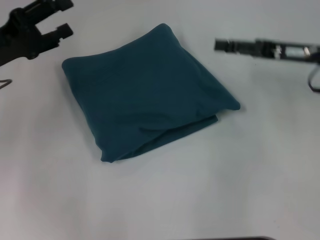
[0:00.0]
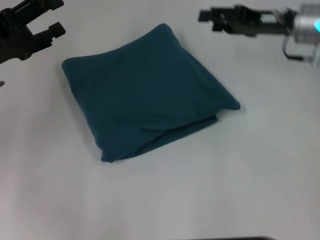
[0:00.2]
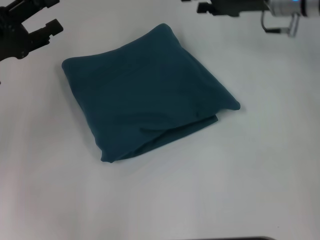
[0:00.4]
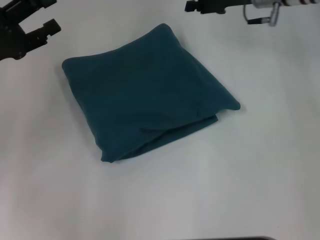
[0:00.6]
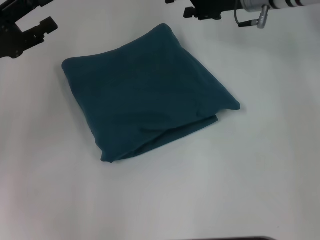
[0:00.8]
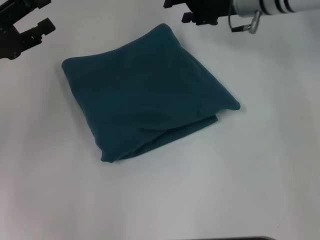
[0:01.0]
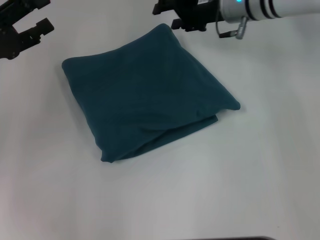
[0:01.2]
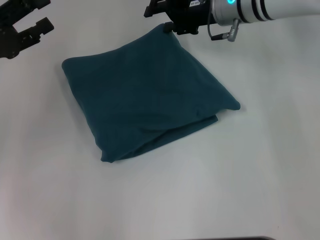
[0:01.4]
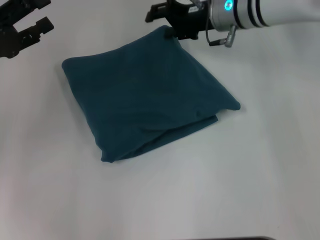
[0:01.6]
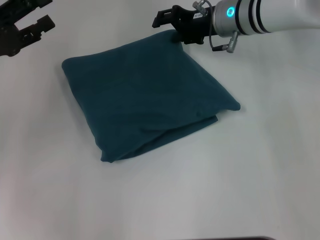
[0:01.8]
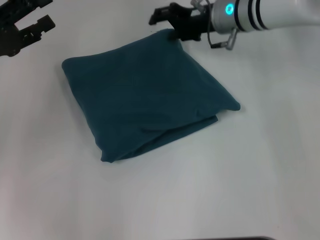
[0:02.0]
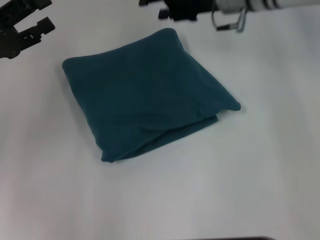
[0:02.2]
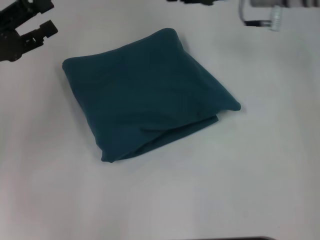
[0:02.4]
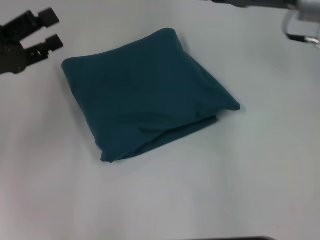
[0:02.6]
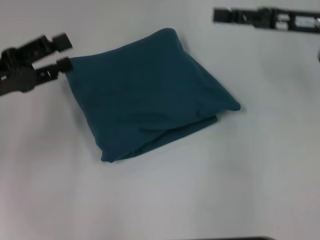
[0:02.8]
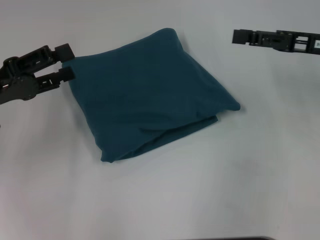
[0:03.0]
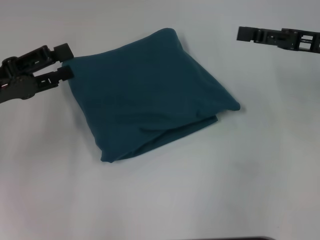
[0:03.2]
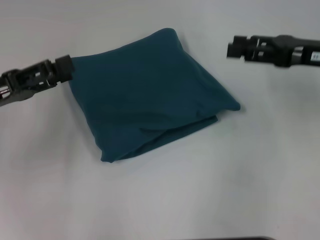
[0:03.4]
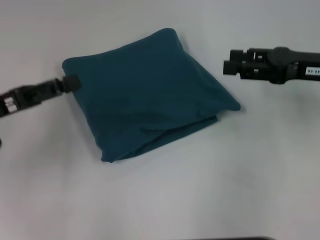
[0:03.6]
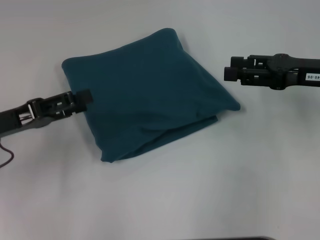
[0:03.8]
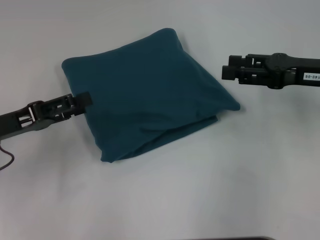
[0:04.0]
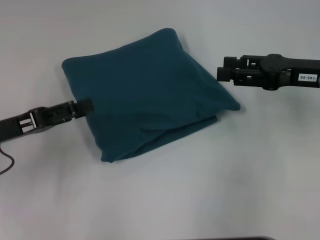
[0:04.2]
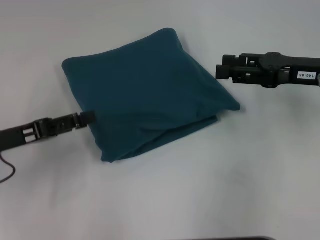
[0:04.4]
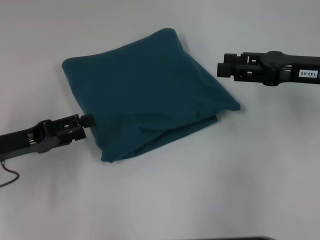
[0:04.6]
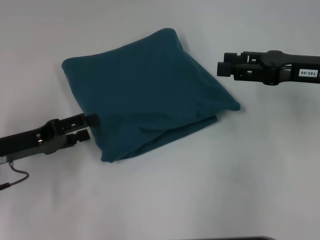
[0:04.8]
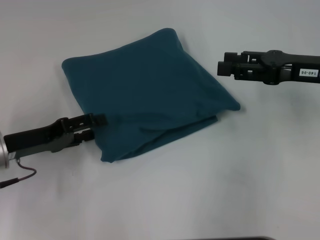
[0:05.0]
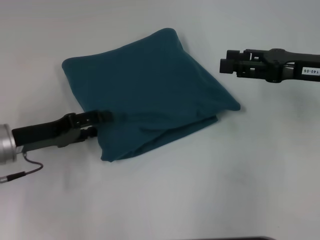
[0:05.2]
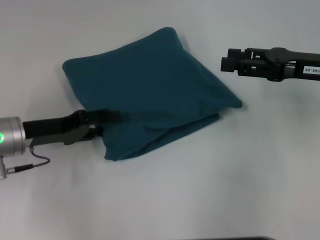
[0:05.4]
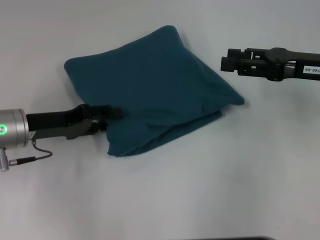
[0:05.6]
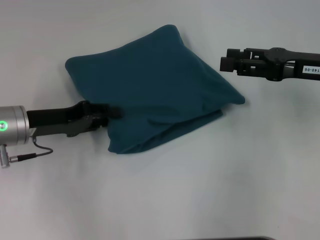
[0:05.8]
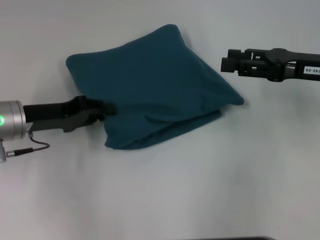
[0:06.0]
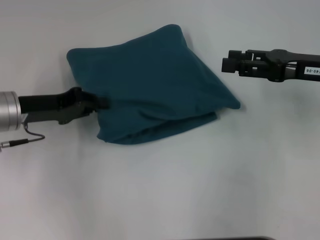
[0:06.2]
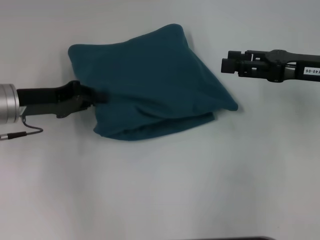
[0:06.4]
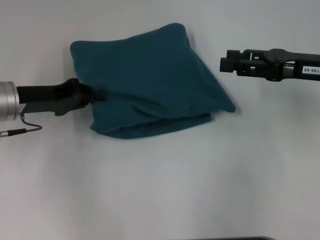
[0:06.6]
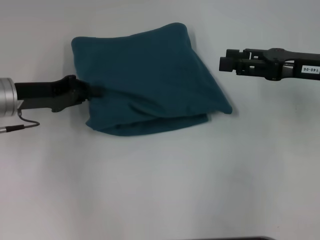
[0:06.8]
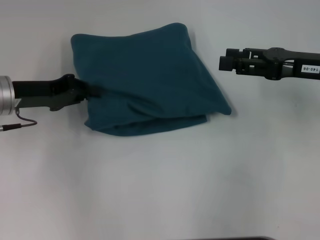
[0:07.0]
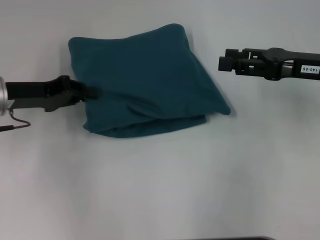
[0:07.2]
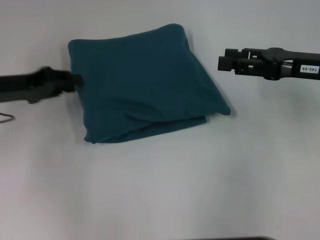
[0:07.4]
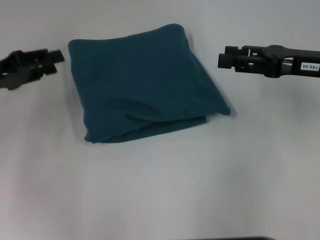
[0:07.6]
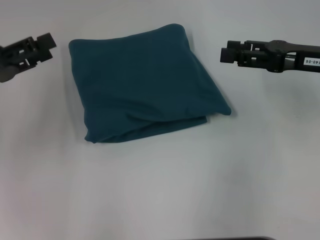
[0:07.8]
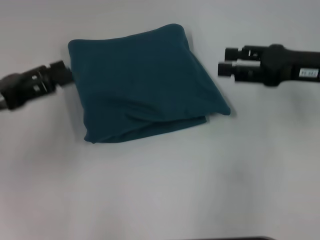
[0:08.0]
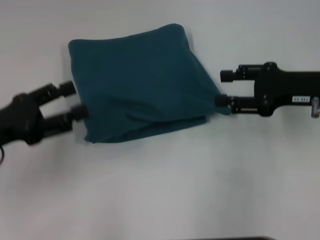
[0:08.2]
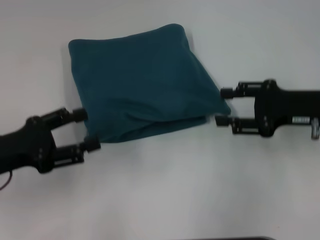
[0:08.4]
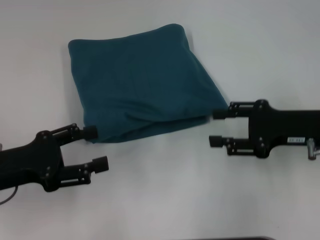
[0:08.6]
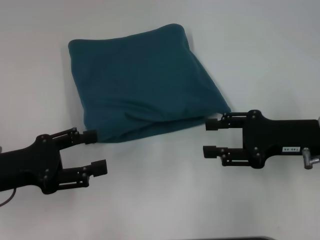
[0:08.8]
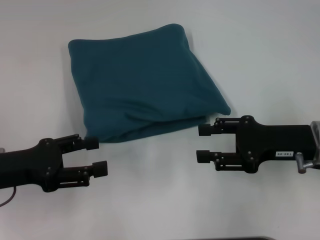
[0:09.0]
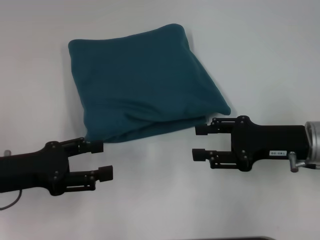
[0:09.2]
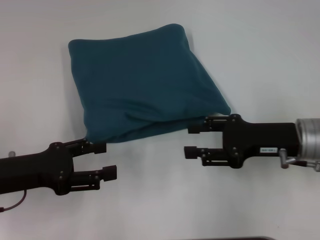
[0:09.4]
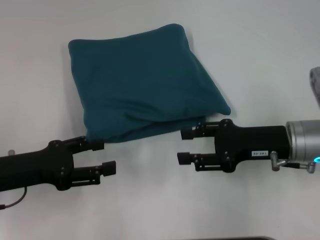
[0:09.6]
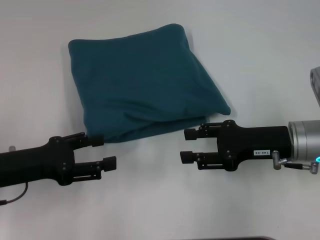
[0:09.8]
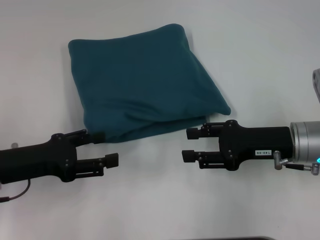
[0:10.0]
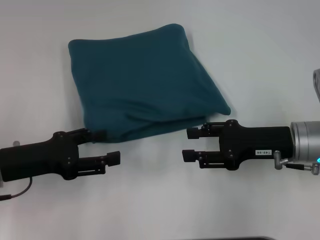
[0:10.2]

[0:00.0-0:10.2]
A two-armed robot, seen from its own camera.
0:00.0 to 0:01.4: The right gripper goes some 15 cm to the left and forward.
0:01.4 to 0:03.0: The right gripper heads to the right and backward, covering approximately 20 cm.
0:03.0 to 0:04.4: The grippers move only a little.
0:04.4 to 0:05.8: The left gripper moves forward, about 5 cm.
0:05.8 to 0:07.2: The left gripper moves about 5 cm, and closes its fingers.
0:07.2 to 0:08.8: The right gripper moves backward and downward, approximately 10 cm. Meanwhile the left gripper travels backward by about 10 cm, and opens.
0:08.8 to 0:10.2: The grippers make only small movements.

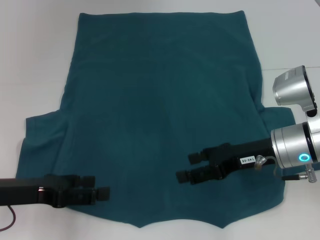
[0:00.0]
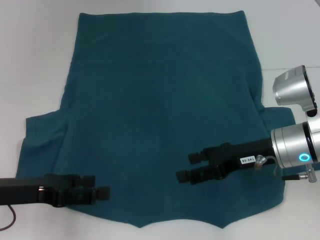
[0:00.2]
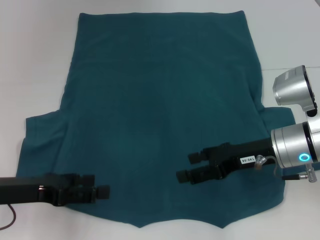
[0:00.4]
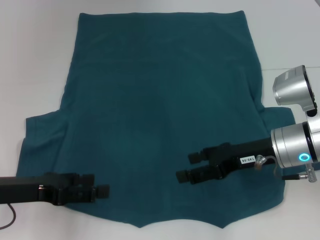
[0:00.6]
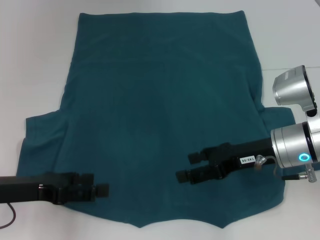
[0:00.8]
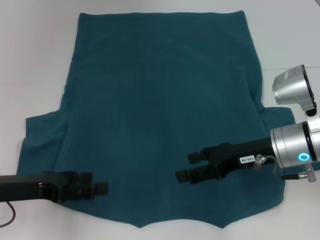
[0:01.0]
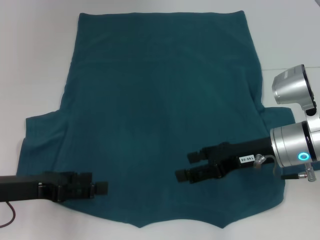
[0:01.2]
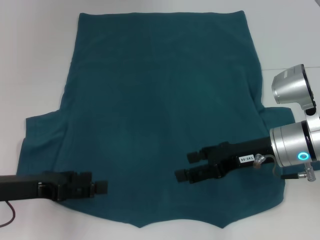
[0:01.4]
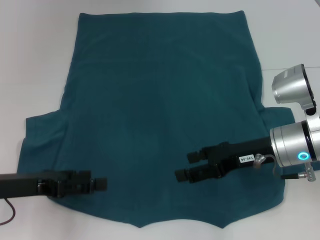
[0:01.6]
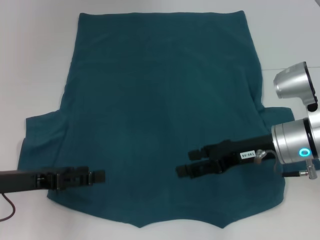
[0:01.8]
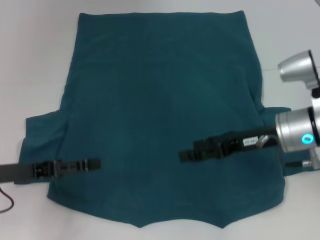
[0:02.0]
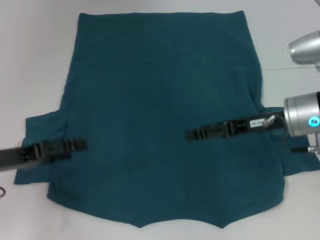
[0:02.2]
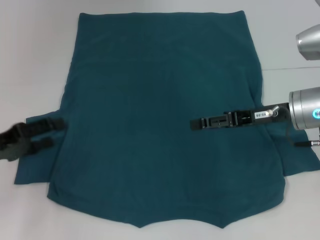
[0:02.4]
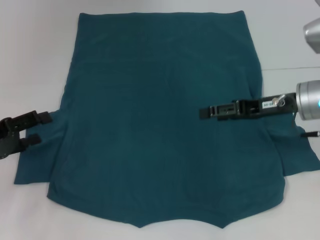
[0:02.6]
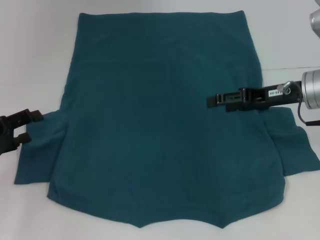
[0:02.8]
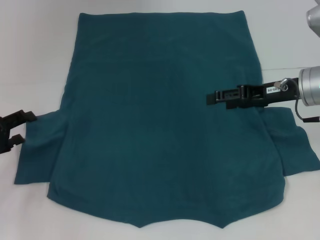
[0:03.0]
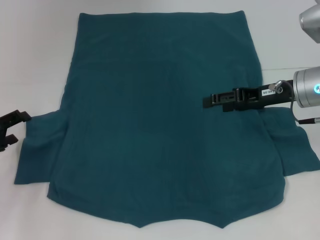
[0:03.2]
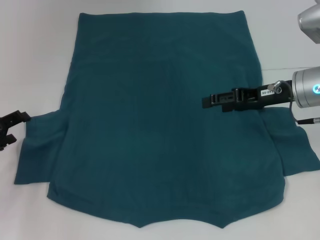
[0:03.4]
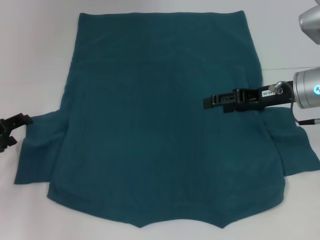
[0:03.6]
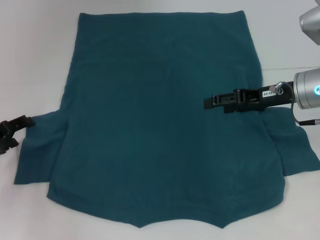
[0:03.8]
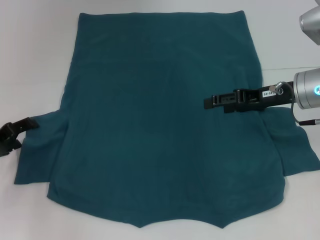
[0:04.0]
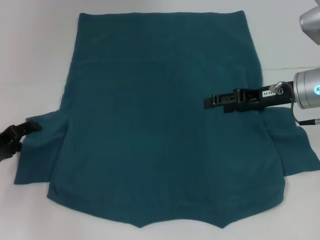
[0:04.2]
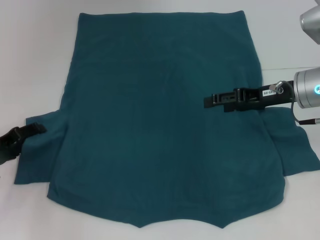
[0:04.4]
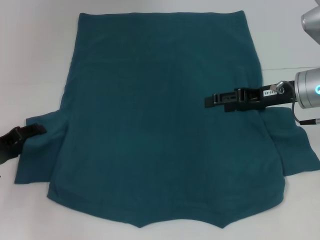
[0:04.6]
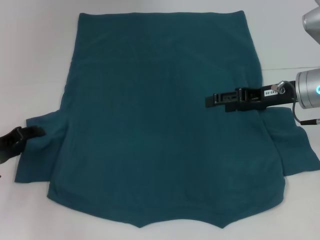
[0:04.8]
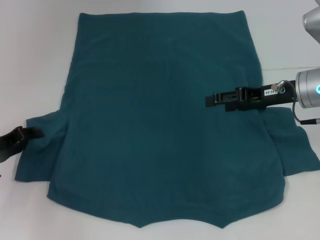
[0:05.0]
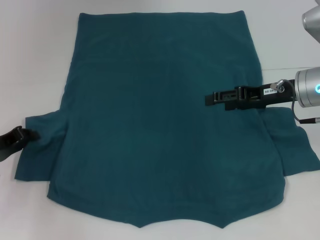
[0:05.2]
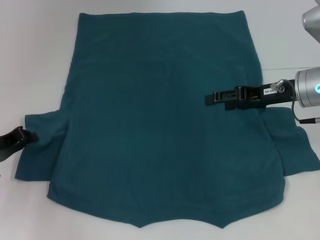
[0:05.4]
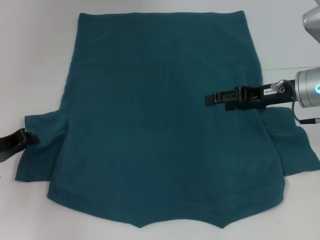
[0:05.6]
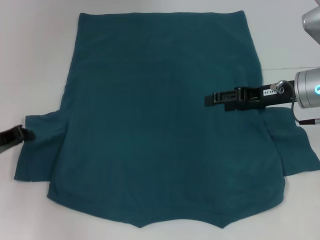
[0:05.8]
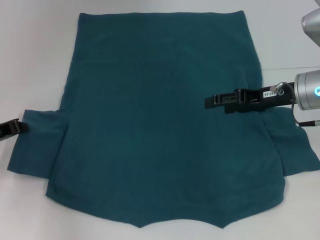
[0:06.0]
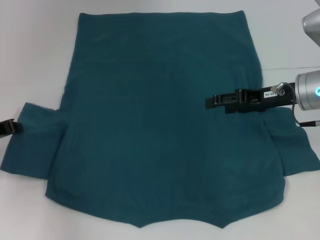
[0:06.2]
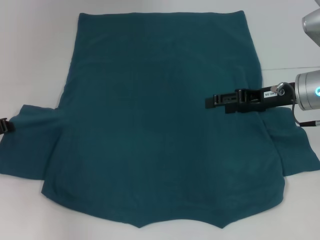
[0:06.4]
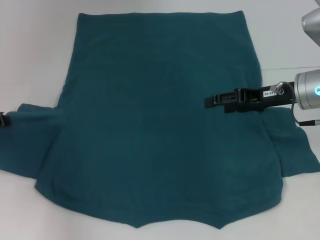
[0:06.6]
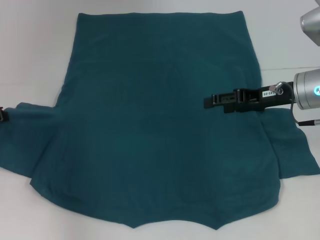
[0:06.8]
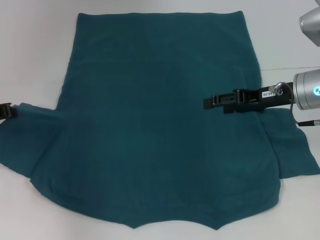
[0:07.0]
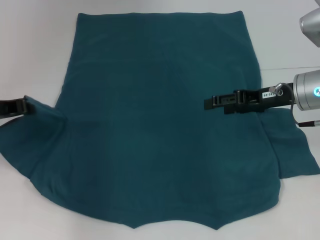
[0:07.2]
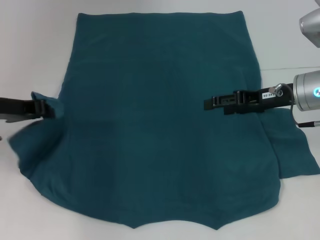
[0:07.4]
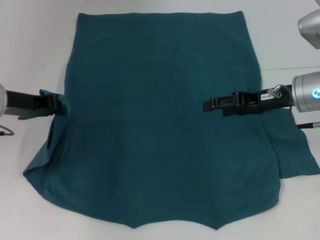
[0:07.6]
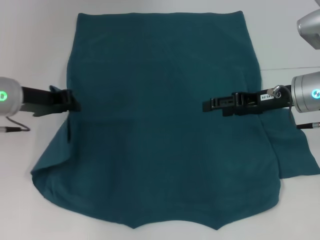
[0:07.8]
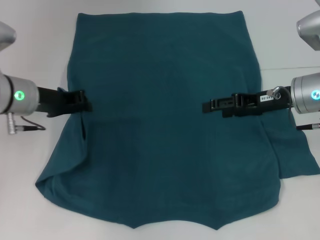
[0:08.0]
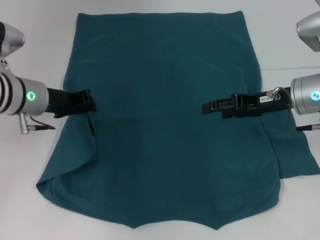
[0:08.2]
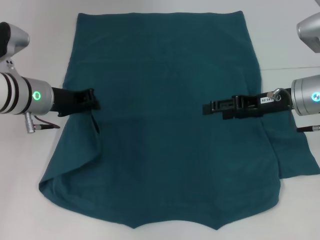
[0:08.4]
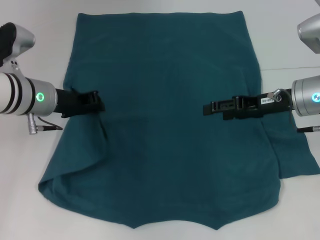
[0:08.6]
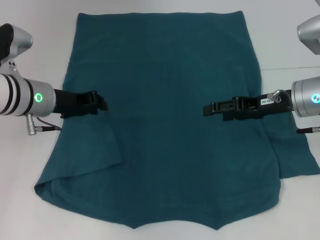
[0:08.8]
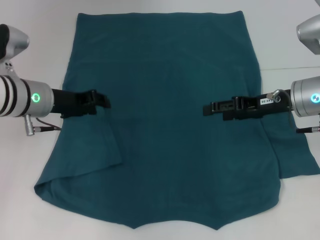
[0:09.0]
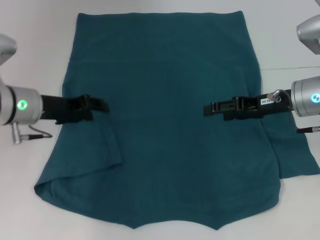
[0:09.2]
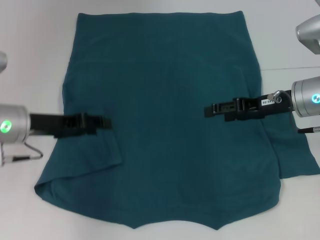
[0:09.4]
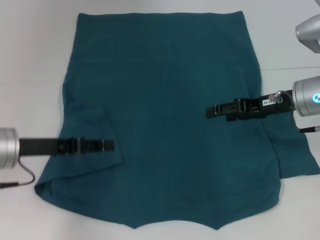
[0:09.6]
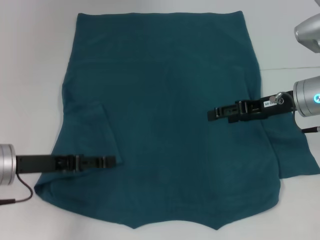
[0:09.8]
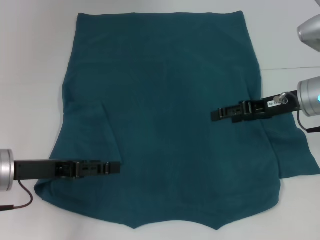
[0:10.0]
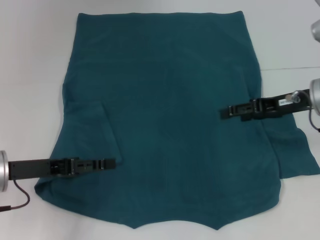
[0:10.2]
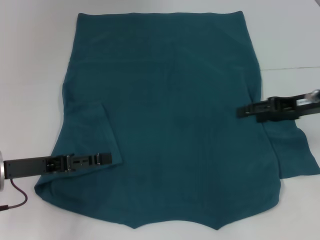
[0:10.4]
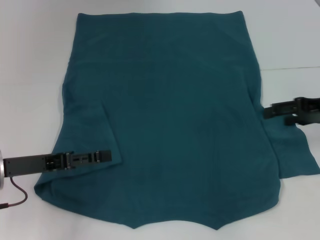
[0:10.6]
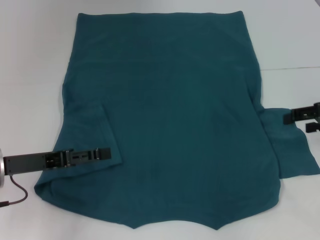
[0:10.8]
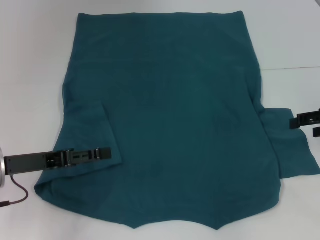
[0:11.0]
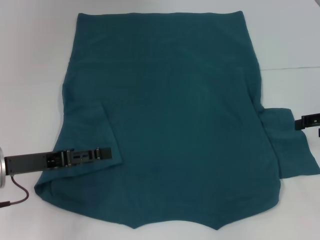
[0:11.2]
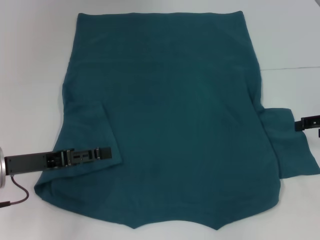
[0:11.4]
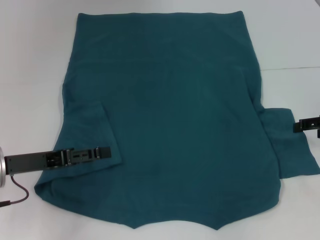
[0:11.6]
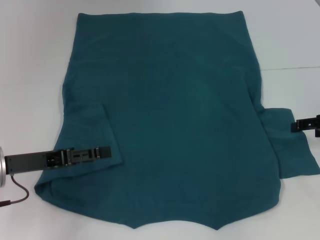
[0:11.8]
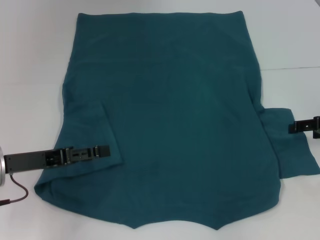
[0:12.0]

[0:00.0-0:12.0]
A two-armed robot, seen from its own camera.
Step, 0:00.0 to 0:08.8: Fold the bottom left sleeve with your left hand.
0:00.0 to 0:01.6: Both grippers stay about where they are.
0:01.6 to 0:03.0: The right gripper shifts some 5 cm forward. The left gripper travels to the left by about 5 cm.
0:03.0 to 0:04.4: There are only small adjustments of the grippers.
0:04.4 to 0:06.0: The left gripper closes its fingers.
0:06.0 to 0:07.6: The left gripper goes some 10 cm upward and to the right.
0:07.6 to 0:09.0: The left gripper is displaced to the right by about 5 cm.
0:09.0 to 0:10.4: The left gripper is displaced backward and to the left by some 15 cm, and opens; the right gripper moves to the right, about 5 cm.
0:10.4 to 0:12.0: The right gripper moves to the right, some 5 cm.
